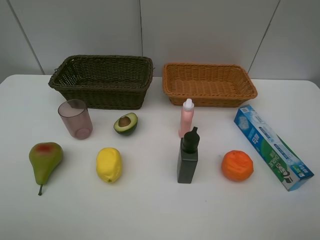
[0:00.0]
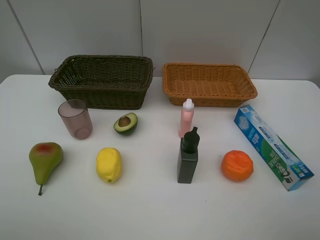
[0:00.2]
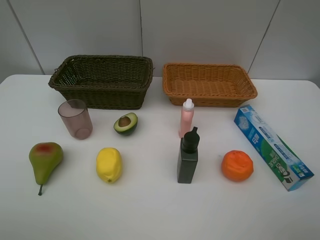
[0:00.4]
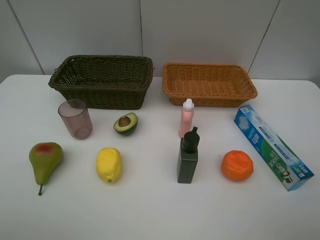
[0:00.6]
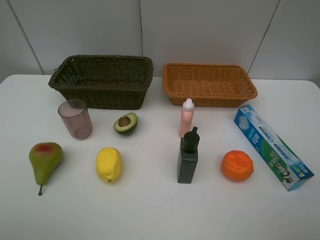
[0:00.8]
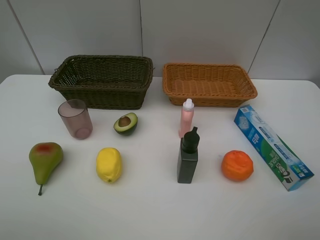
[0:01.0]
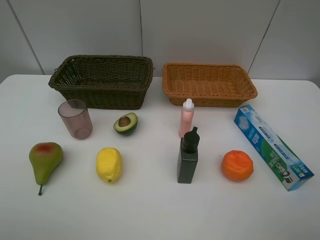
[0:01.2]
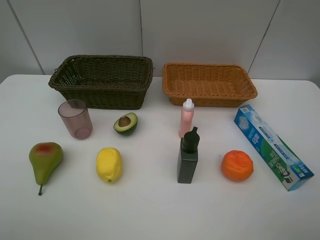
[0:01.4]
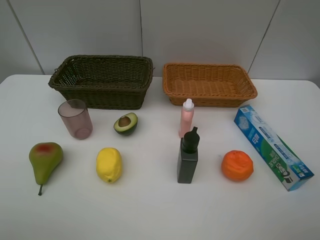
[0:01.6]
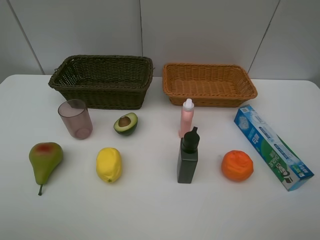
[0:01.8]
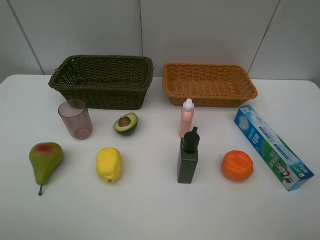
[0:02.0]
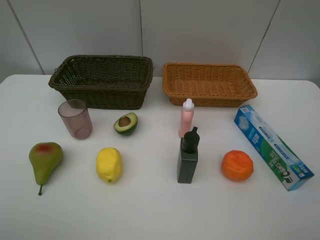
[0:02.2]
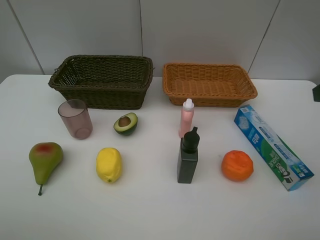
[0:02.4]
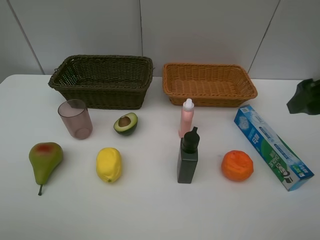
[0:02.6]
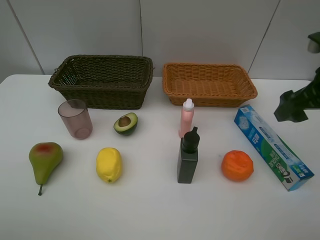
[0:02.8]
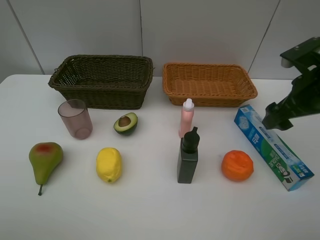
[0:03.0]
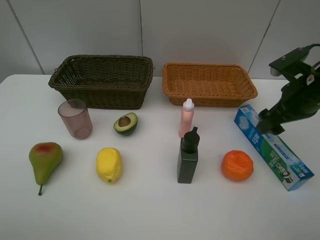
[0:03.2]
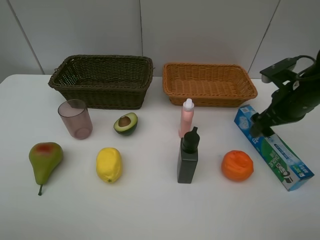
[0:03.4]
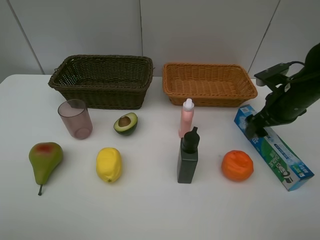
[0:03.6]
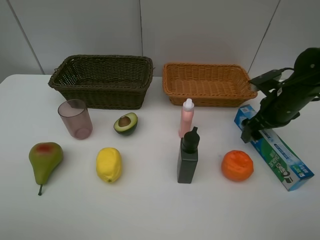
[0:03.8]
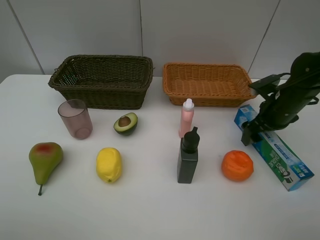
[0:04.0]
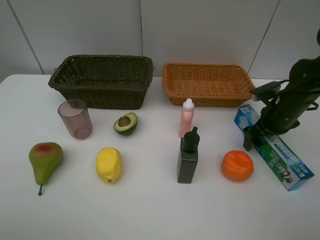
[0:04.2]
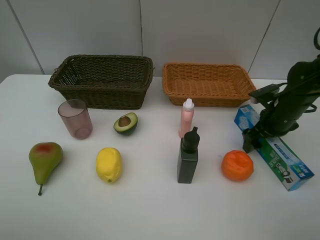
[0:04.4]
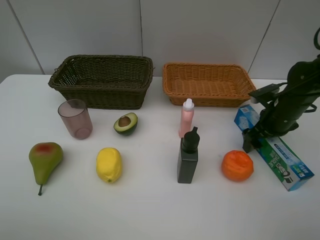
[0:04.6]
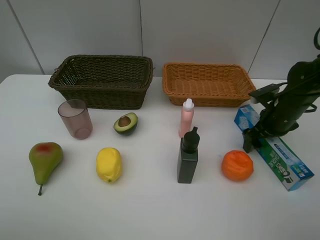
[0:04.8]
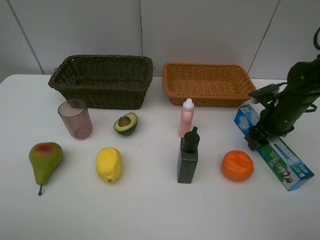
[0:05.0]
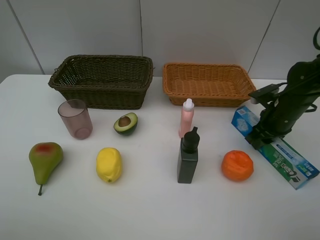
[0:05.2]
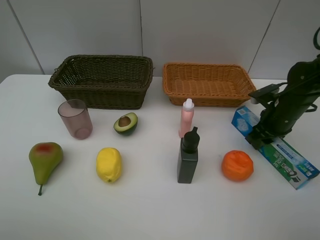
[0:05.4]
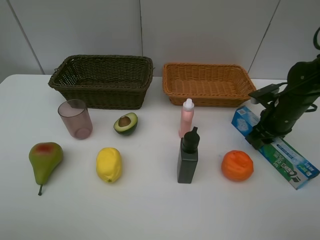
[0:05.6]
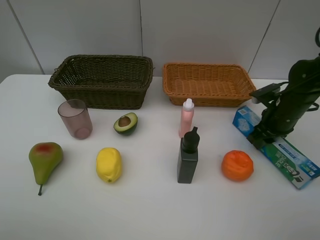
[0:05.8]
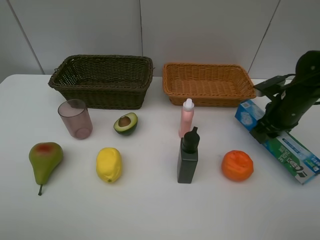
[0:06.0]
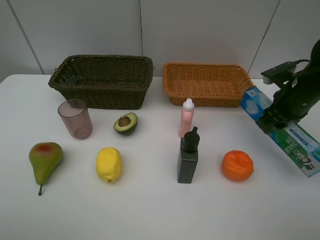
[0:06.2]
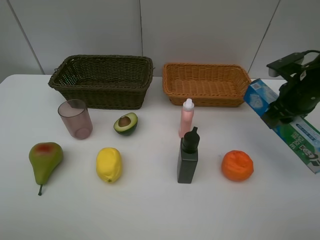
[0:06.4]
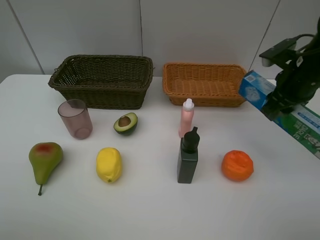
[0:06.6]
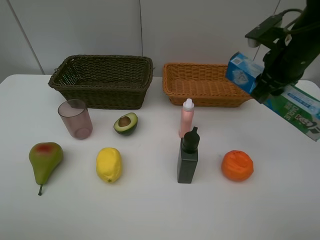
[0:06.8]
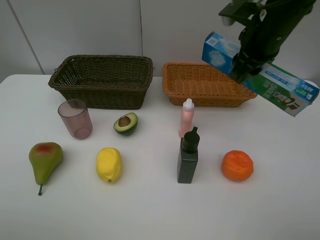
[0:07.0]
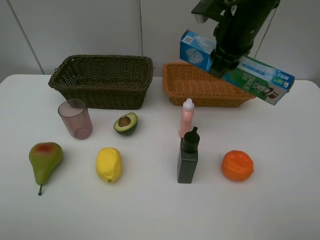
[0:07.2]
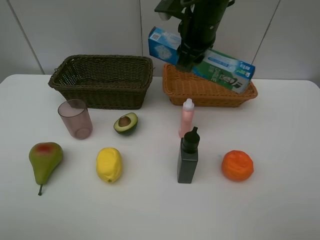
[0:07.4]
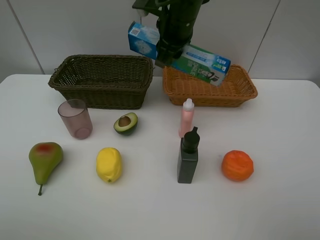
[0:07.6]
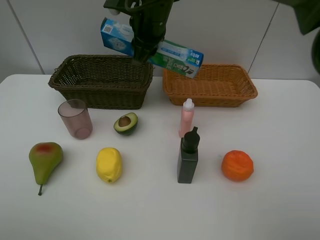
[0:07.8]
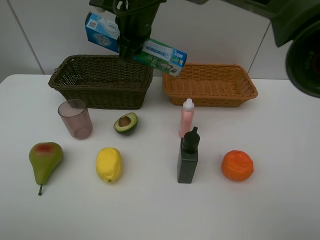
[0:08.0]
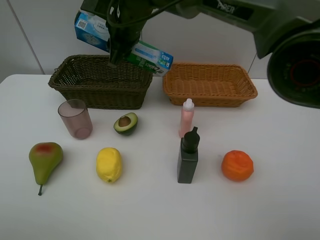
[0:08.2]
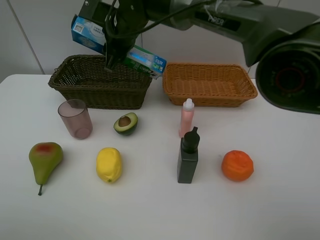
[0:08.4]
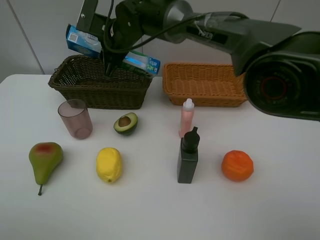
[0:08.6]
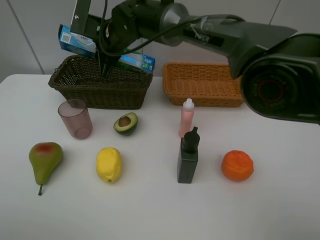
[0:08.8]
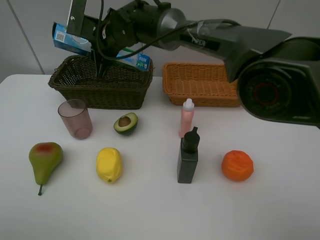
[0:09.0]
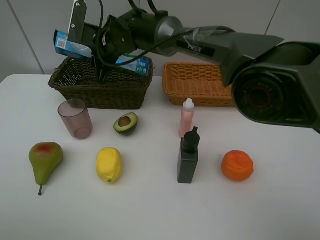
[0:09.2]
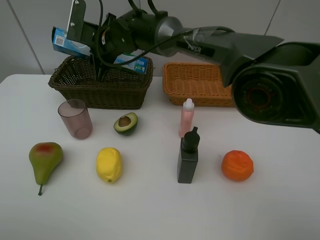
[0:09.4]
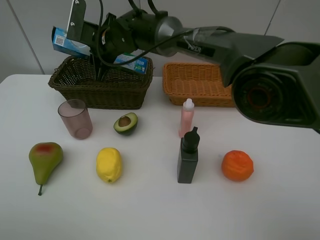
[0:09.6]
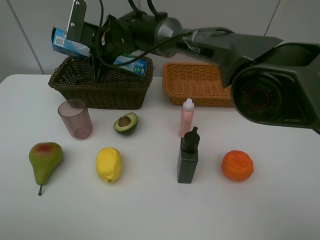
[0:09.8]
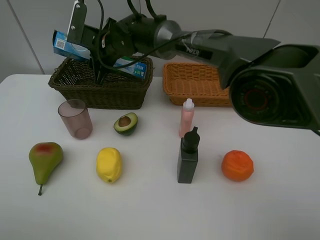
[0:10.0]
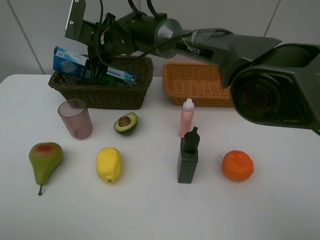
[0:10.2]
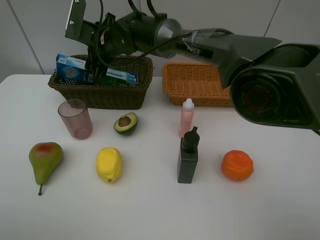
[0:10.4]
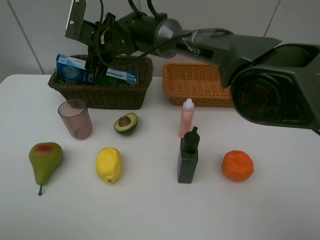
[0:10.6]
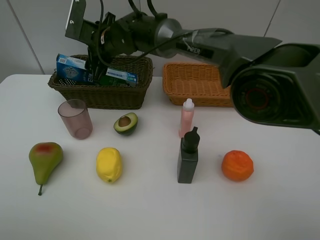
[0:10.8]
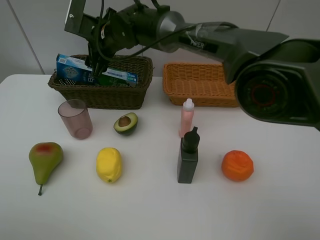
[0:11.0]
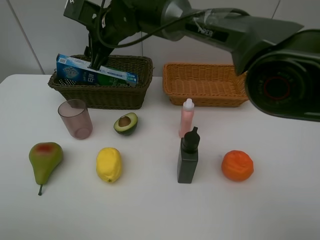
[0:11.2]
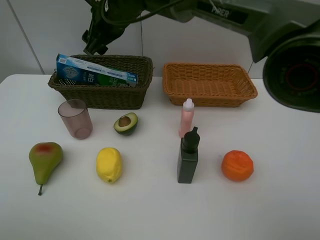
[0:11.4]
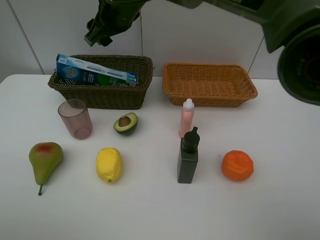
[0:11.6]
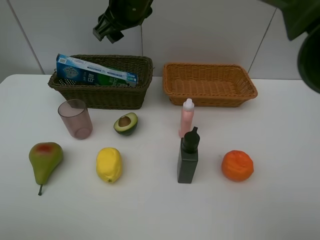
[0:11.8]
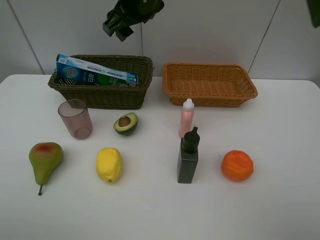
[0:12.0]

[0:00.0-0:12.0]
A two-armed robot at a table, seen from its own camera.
Task of the whole recording: Place multiple objects separately in different baskets.
Step, 0:00.0 to 0:06.0: Pick up toothpaste with right gripper.
Step, 0:06.2 to 0:10.6: Place the toothpaste in the dark basket with right gripper.
0:00.0 to 0:01.6: Both grippers stay about where they are.
0:01.6 to 0:03.0: The right gripper is displaced forward by some 25 cm.
0:03.0 to 0:04.4: The right gripper moves downward and forward, approximately 10 cm.
0:04.4 to 0:06.0: The right gripper closes up.
0:06.0 to 0:07.6: The right gripper shifts some 30 cm to the left and upward.
0:07.6 to 0:09.0: The right gripper travels to the left and downward by approximately 15 cm.
0:09.0 to 0:10.4: The right gripper opens.
0:10.4 to 0:12.0: The right gripper goes approximately 15 cm upward and to the right.

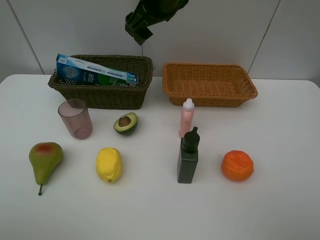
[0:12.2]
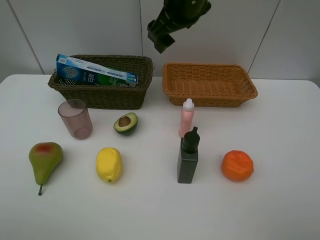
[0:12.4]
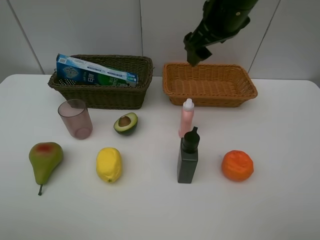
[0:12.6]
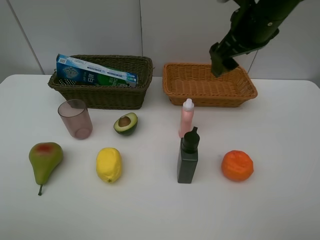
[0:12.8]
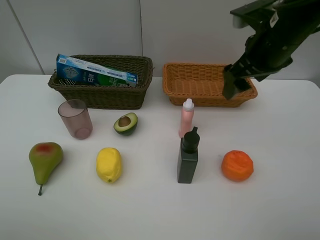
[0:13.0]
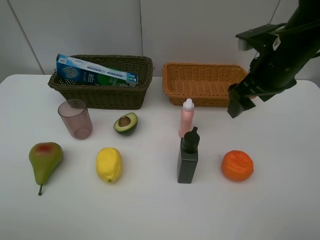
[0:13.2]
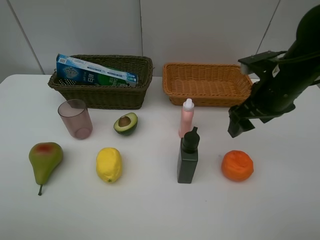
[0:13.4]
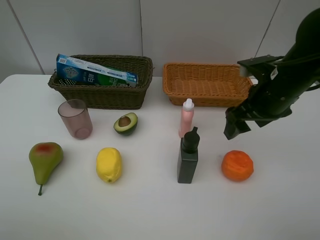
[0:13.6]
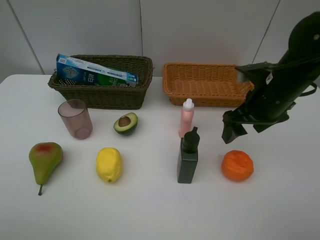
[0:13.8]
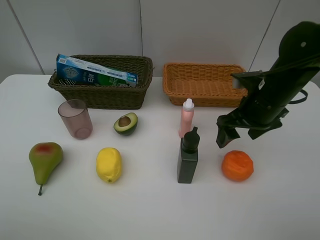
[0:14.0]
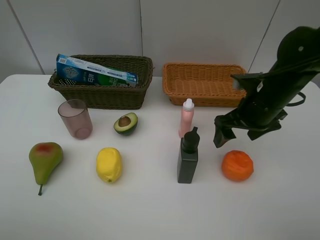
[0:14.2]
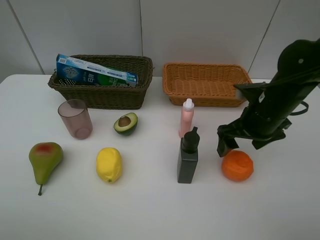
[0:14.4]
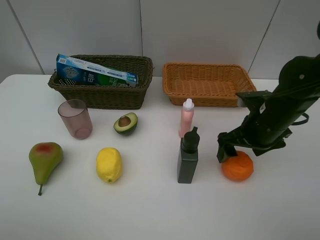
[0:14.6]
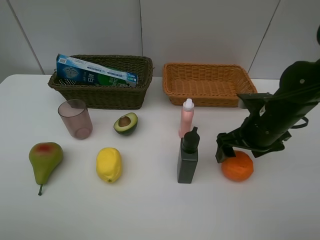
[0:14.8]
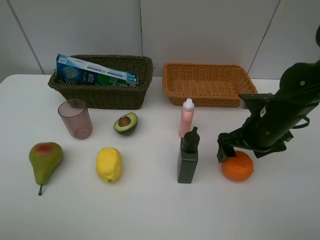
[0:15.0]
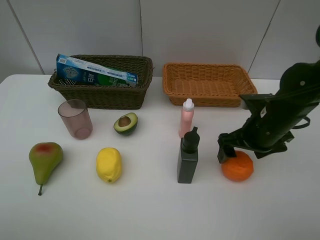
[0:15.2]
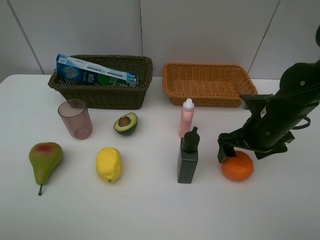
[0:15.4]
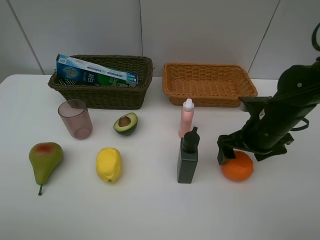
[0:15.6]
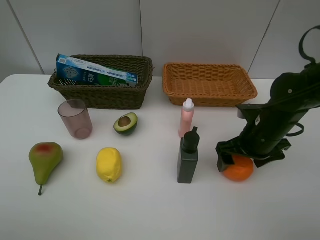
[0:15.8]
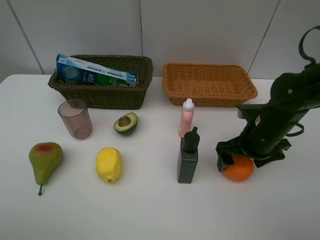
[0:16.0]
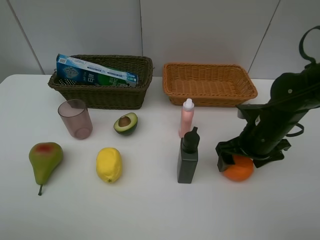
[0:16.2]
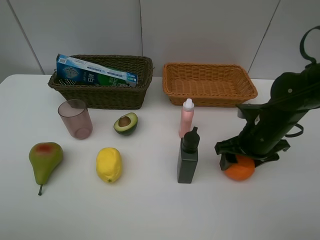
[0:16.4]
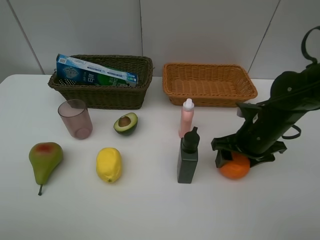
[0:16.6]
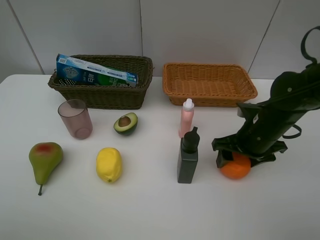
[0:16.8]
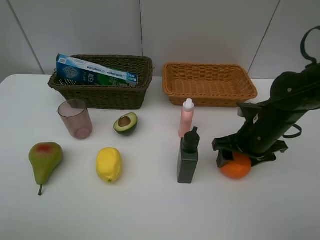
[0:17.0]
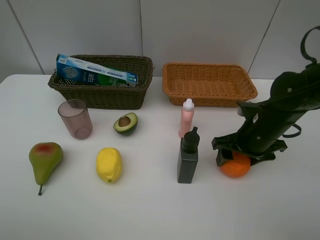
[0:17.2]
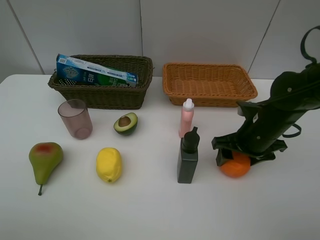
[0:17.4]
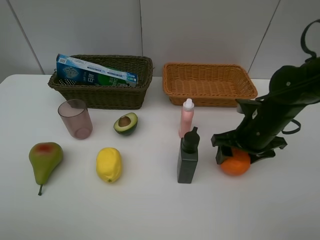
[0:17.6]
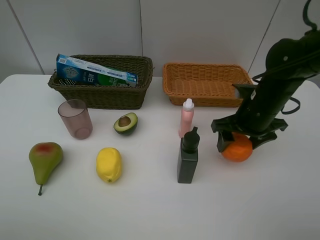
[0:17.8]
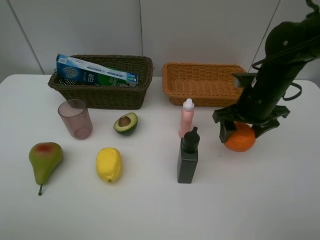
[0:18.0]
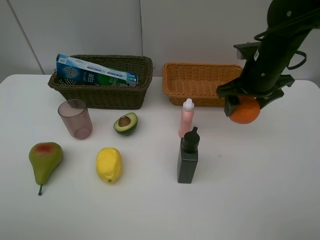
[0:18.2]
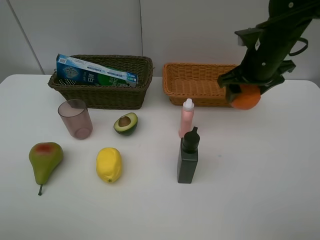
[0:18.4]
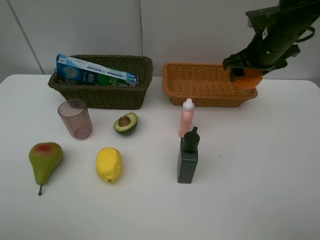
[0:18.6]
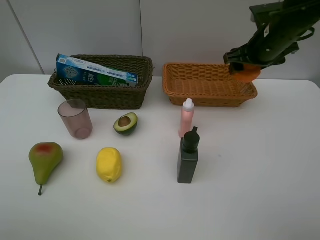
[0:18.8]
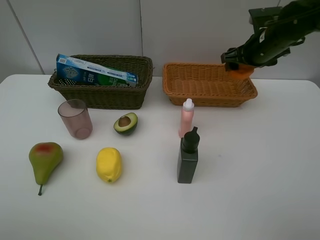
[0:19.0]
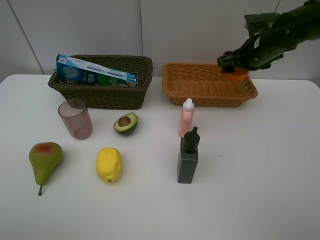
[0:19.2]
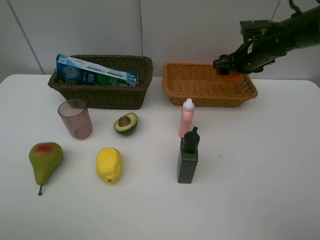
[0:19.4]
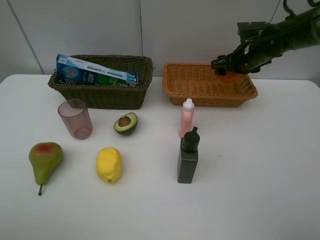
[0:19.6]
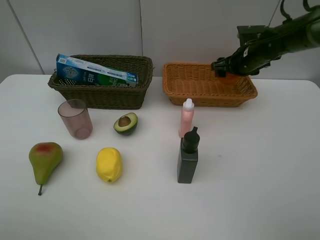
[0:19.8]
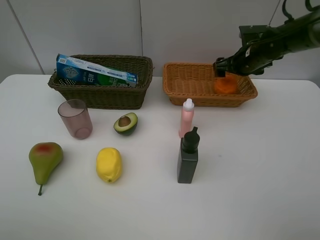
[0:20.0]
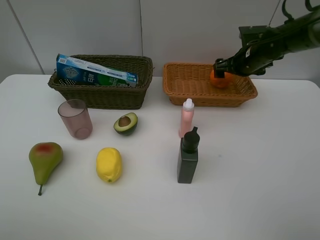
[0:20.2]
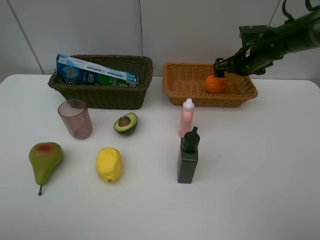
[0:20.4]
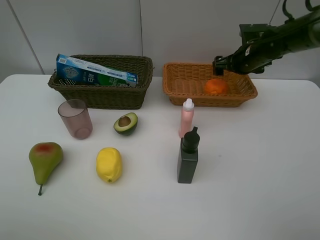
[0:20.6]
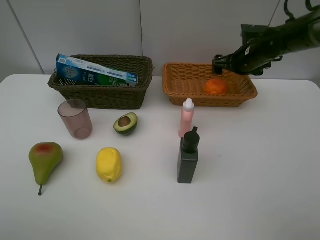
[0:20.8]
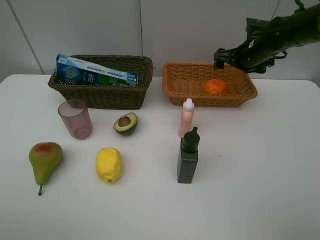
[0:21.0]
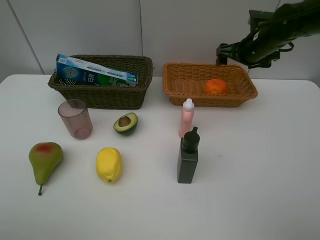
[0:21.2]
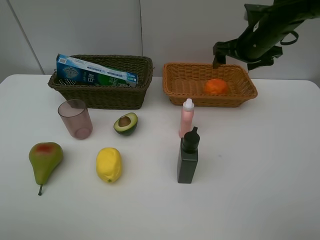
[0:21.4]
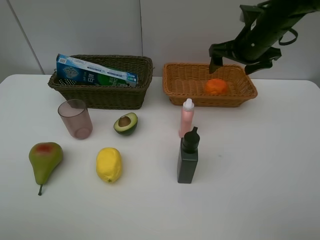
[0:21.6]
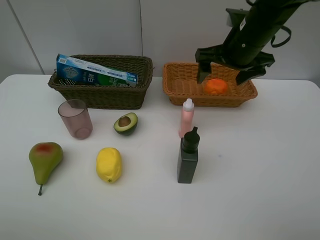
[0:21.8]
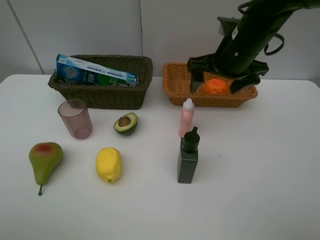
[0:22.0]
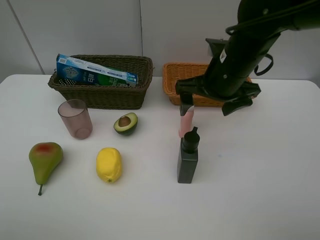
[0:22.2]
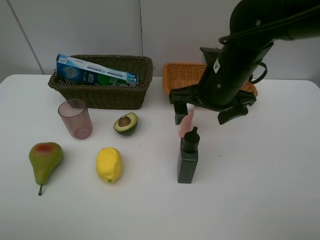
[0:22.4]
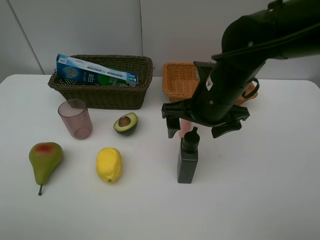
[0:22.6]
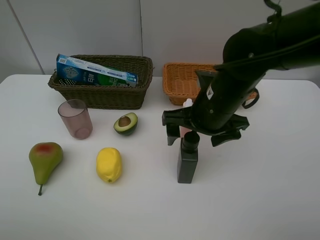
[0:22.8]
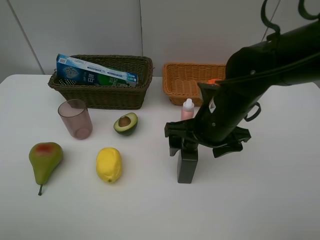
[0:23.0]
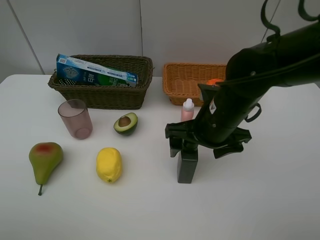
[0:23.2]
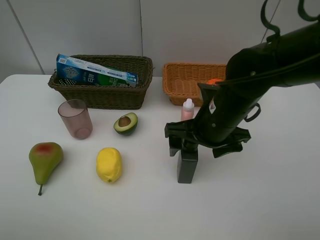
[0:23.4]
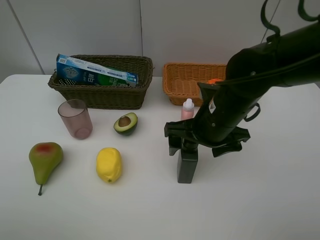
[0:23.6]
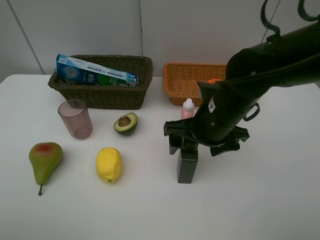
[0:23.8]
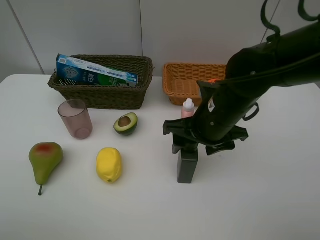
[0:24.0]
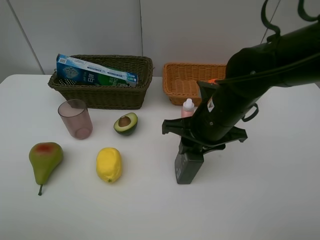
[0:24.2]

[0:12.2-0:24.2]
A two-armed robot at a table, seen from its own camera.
Task of the whole recording: Place multiple objects separately in different baskets.
Step, 0:12.2 to 0:17.6: Pick up the orange with right gripper.
Step, 0:17.8 to 0:20.4: Place the orange in the light basket with right gripper.
0:12.2 to 0:13.8: The right gripper moves to the right, downward and backward, approximately 25 cm.
0:13.8 to 0:15.2: The right gripper travels downward by roughly 5 cm.
0:15.2 to 0:16.6: The right gripper closes.
0:16.6 to 0:18.2: The right gripper heads upward and forward, covering approximately 15 cm.
0:18.2 to 0:19.8: The right gripper travels forward and downward by some 15 cm.
0:19.8 to 0:21.2: The right gripper moves approximately 5 cm, and opens.
0:21.2 to 0:22.6: The right gripper travels backward and to the left by some 20 cm.
0:22.6 to 0:24.2: The right gripper closes.
